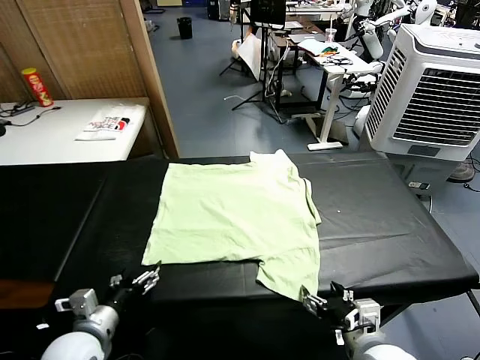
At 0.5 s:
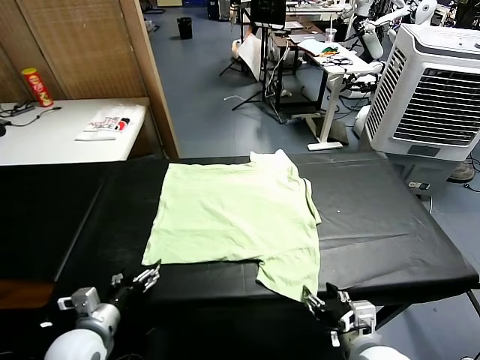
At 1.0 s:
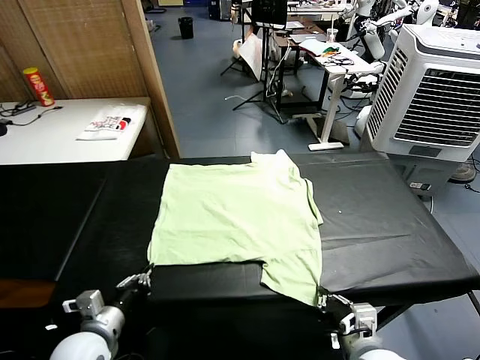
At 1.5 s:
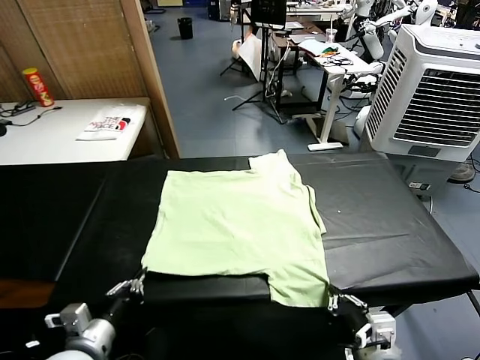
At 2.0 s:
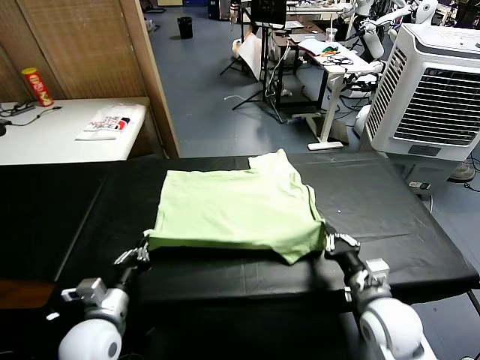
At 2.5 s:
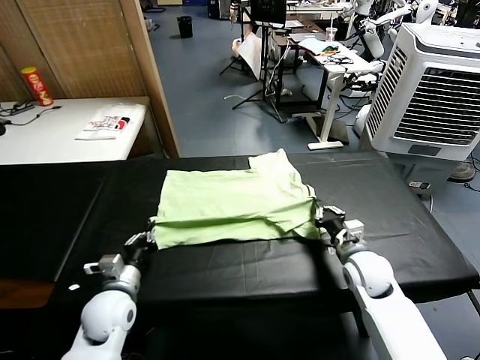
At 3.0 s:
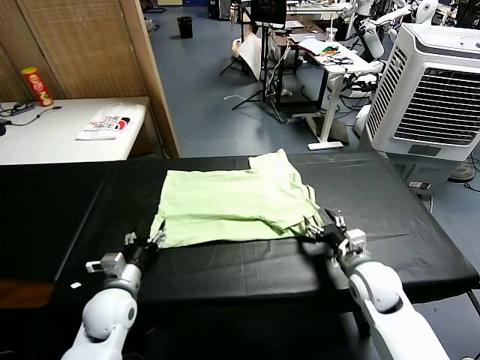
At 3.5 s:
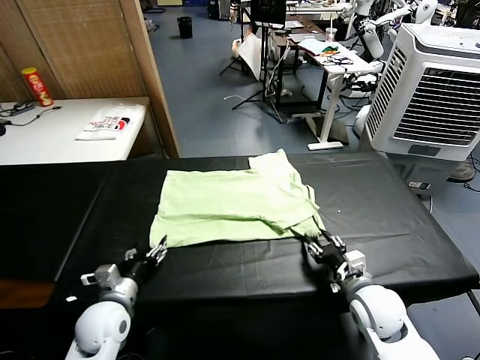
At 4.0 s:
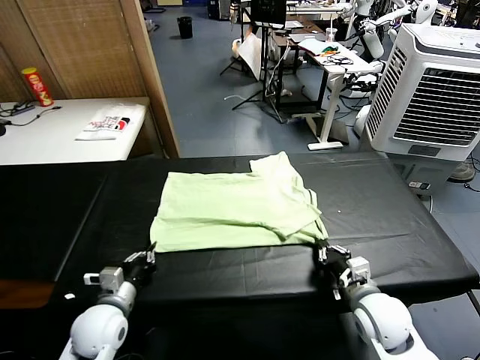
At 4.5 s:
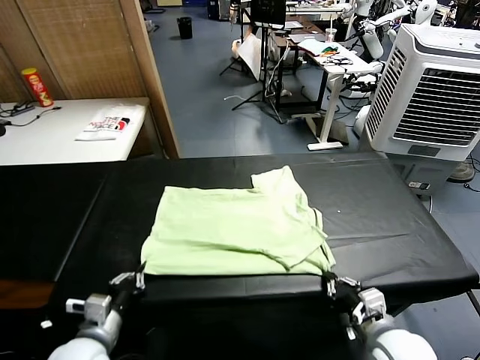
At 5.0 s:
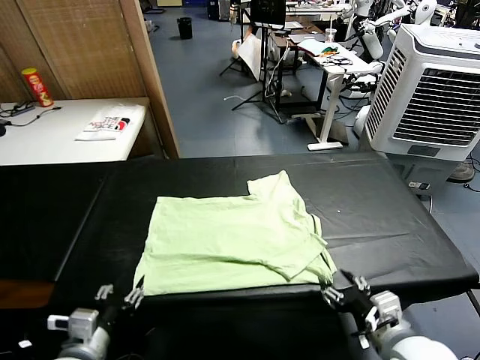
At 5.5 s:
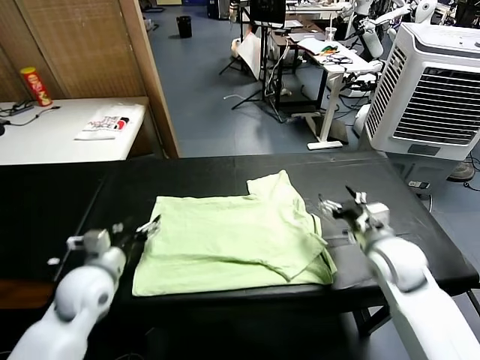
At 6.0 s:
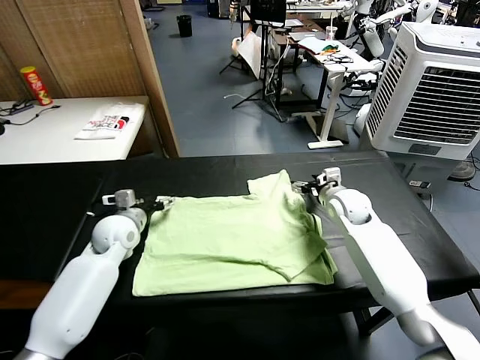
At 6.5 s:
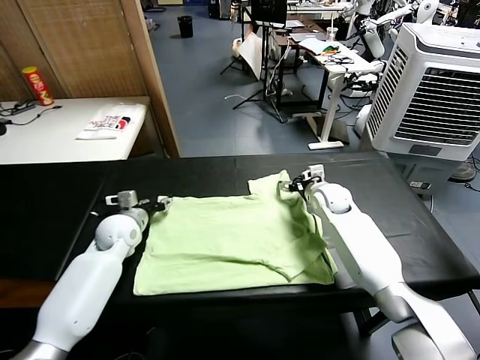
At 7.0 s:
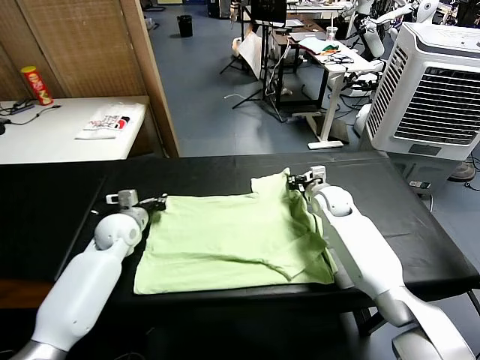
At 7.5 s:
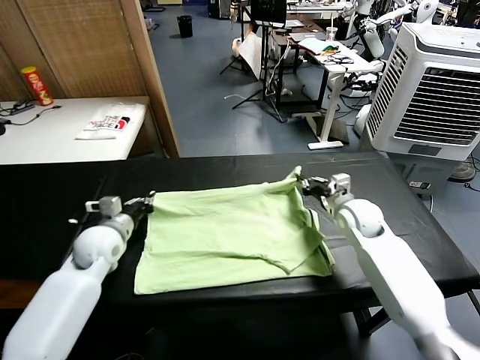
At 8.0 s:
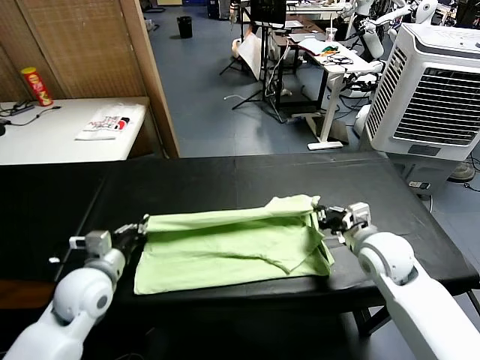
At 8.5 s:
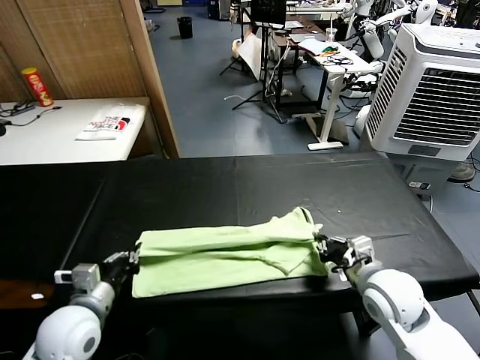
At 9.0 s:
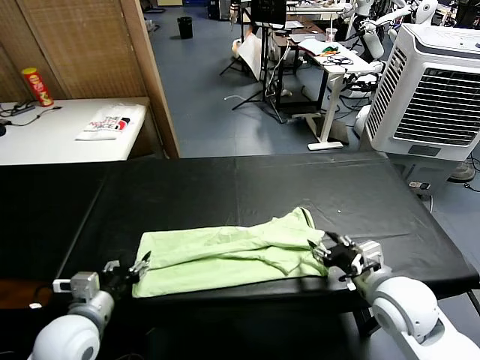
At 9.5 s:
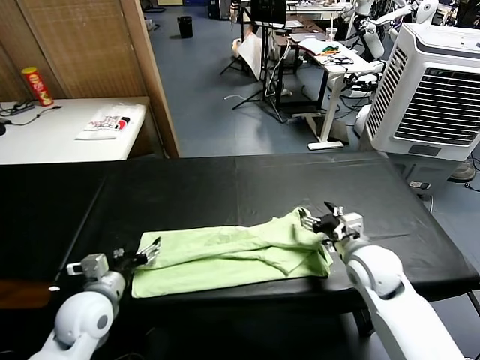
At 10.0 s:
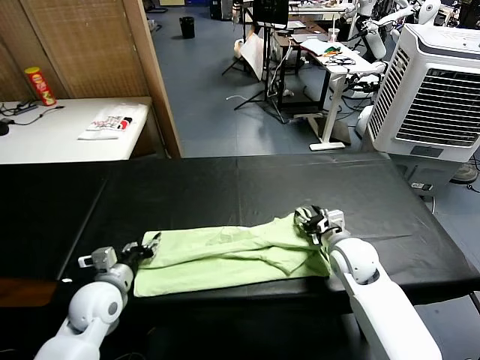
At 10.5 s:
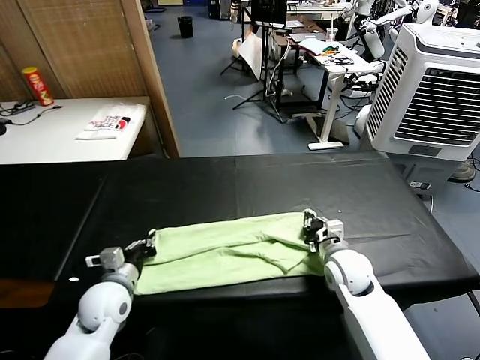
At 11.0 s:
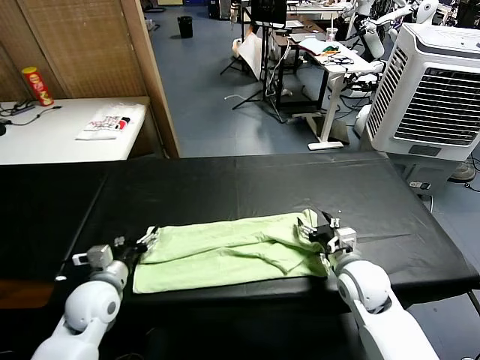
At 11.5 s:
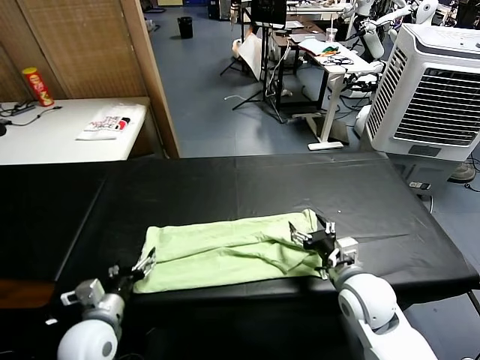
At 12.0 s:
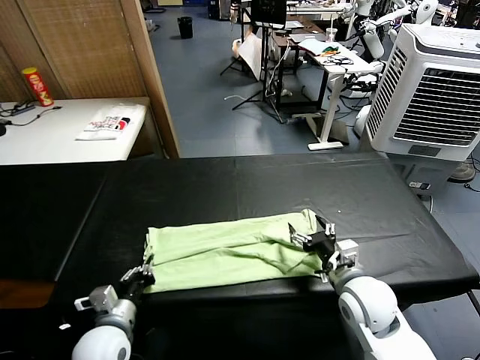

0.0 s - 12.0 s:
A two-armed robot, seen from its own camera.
Task of the whole recording: fold and organize the clothes.
Step, 0.0 s - 1.0 s: use both grippers simultaneously to clamp the lower edge of the clothing fabric.
Step, 1.5 s - 3.0 s: use both grippers to drag the lower edge of the fabric forward and fold it over the upper edge.
Step, 3.5 s - 4.5 s: Drag the clothes downward with both gripper.
Step, 5.5 s - 6.5 s: use both grippers simultaneously to clamp the upper edge of the clothing fabric.
Step, 7.0 s - 9.0 s: use both grippers to drag the upper edge of the fabric backward and fold it over the lower edge.
Step, 9.5 s - 12.0 s: use the left gripper to clamp the left edge of the fabric.
2.0 s - 4.0 s: The right gripper goes approximately 10 cm backward, and opens and closes again, while the left gripper opens, then closes again.
4.0 s - 6.0 s: The right gripper heads forward, covering about 30 cm, and opens its fingers. Meanwhile the left gripper heads forward, covering roughly 20 cm, and opens up.
6.0 s - 8.0 s: Both grippers travel together backward, approximately 20 cm. The left gripper closes its fingers. The right gripper closes its fingers.
8.0 s - 10.0 s: The left gripper travels downward by some 5 cm, goes backward and returns, about 5 cm each way, and opens, while the right gripper goes approximately 10 cm downward and forward, and opens and closes again.
10.0 s - 12.0 s: The two grippers go approximately 10 cm backward. The right gripper opens up. Meanwhile the left gripper closes up.

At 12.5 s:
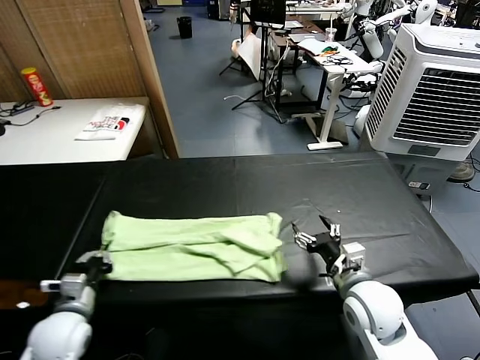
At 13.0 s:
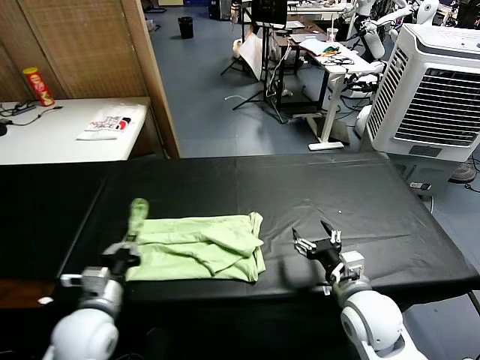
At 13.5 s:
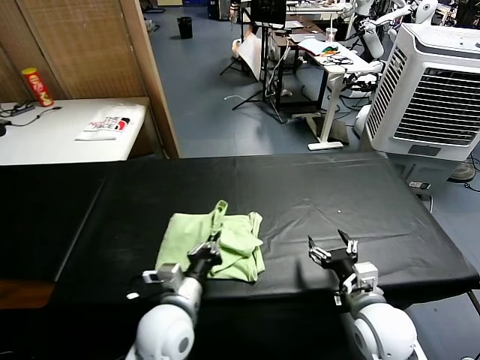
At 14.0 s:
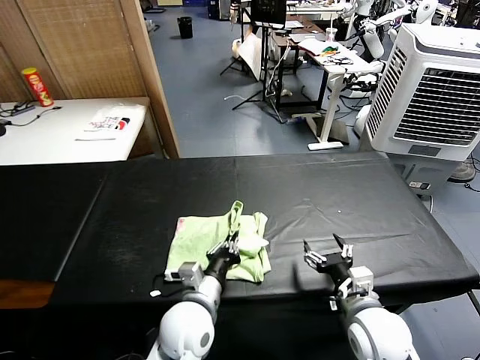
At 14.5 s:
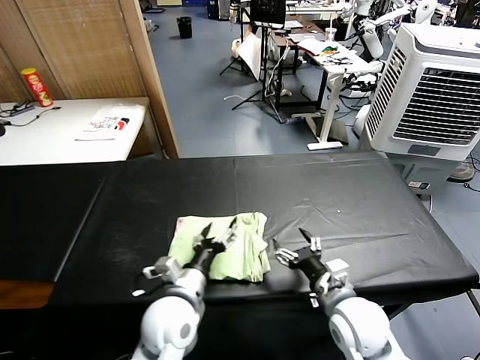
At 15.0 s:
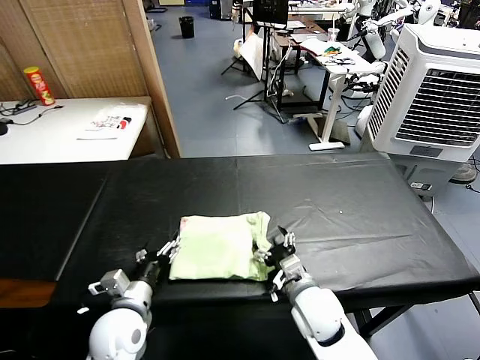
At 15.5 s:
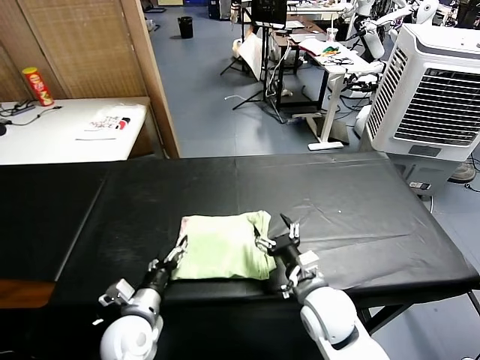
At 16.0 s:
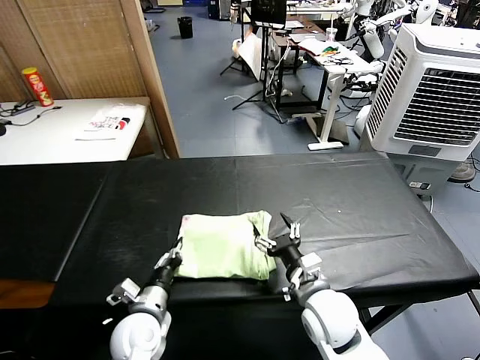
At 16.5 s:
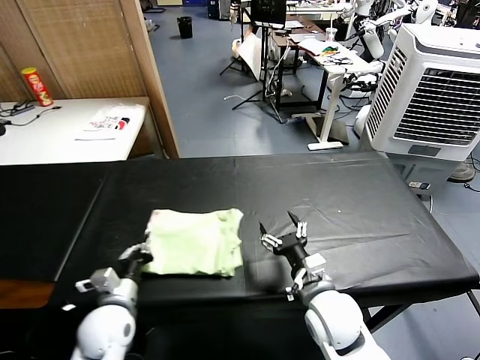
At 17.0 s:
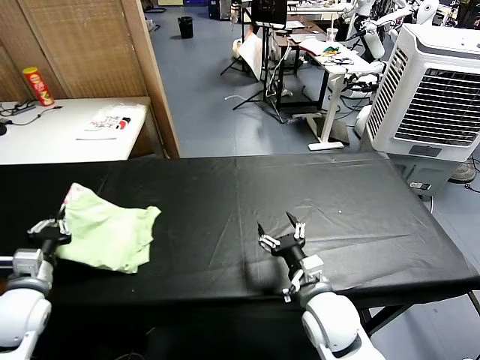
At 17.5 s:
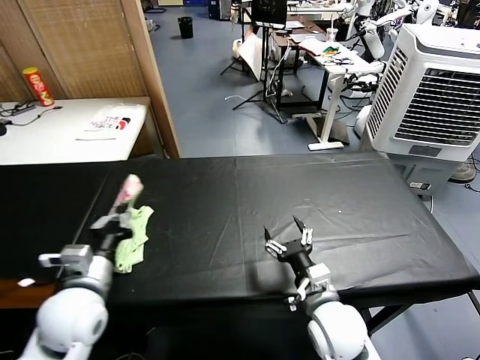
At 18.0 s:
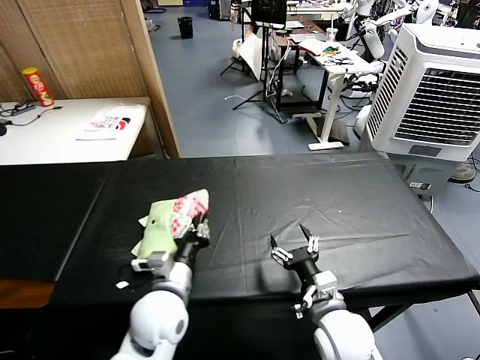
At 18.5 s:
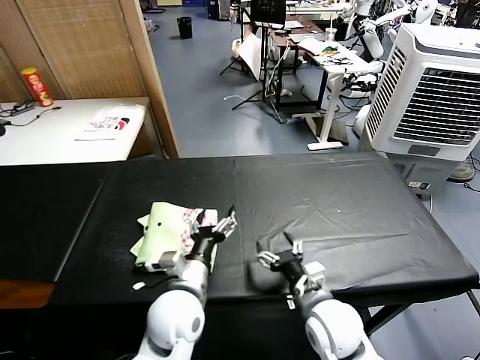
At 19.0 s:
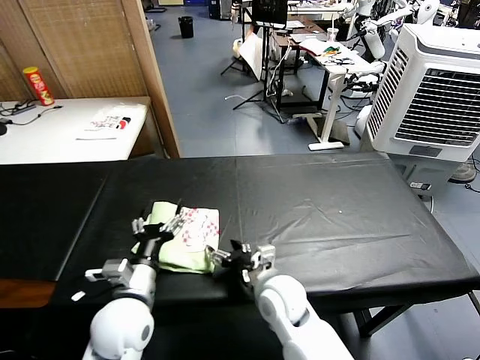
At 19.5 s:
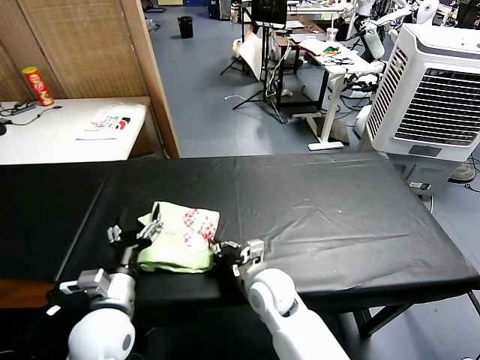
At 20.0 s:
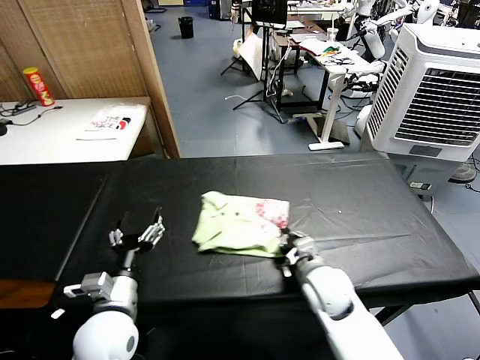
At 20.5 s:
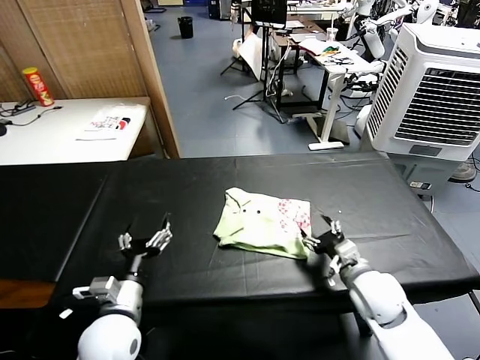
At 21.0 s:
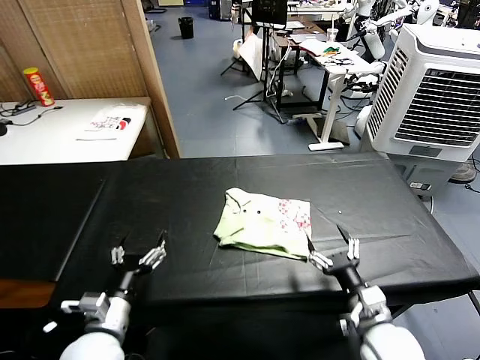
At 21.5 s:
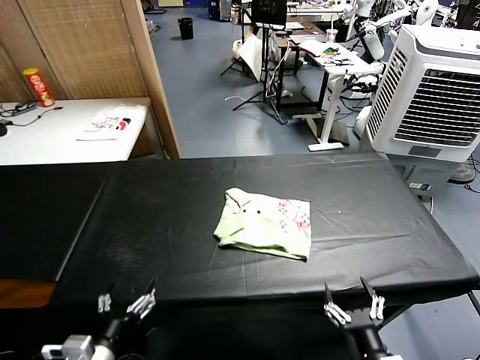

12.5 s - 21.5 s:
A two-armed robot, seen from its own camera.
Task of the whole recording: fold and organize the clothes.
Step, 12.5 s - 14.0 s: use the left gripper to drag the left edge of the fabric to the left and folds it over the right edge.
Step, 14.5 s - 18.0 s: Flip the folded clothes over with left gripper.
Step, 18.5 s - 20.0 s: Drag the clothes to the center of the table.
12.5 s - 14.5 s: The left gripper heads to the right, covering about 20 cm, and opens its fingers.
14.5 s - 17.0 s: The left gripper travels to the left by some 30 cm, and closes its fingers.
17.0 s - 19.5 s: The left gripper travels to the right by approximately 15 cm, and opens its fingers, while the right gripper goes approximately 10 cm to the left and forward, and closes its fingers.
19.5 s - 21.5 s: The left gripper heads backward, covering approximately 10 cm. The right gripper moves backward and to the right, about 30 cm, and opens up.

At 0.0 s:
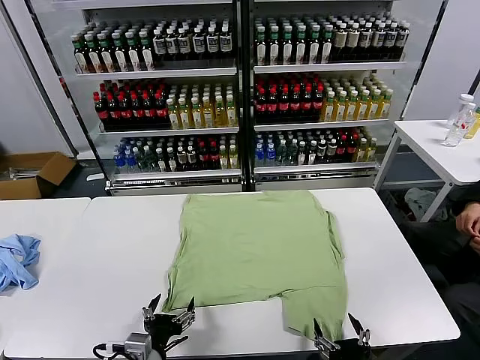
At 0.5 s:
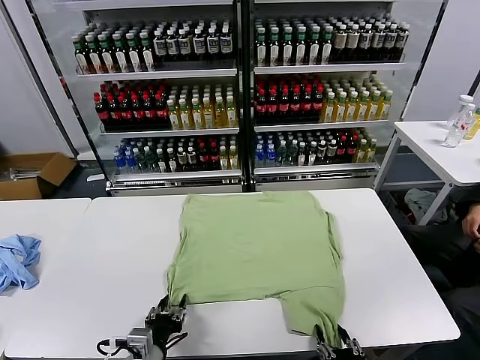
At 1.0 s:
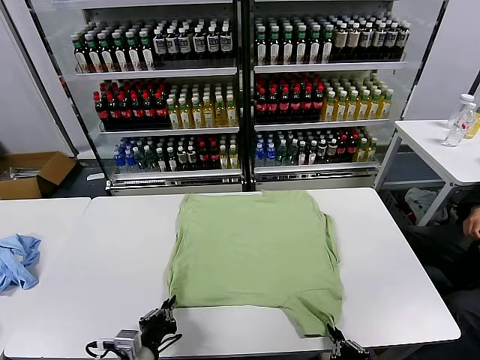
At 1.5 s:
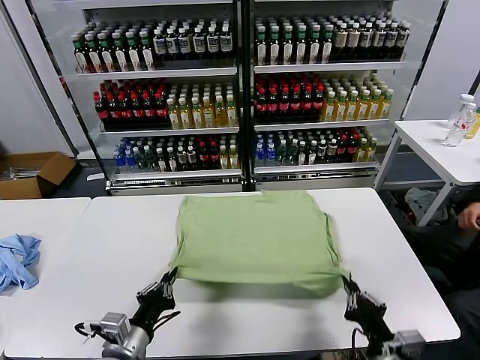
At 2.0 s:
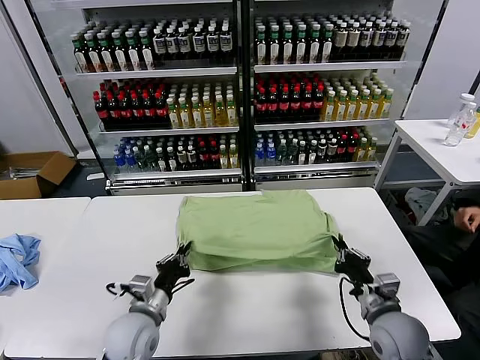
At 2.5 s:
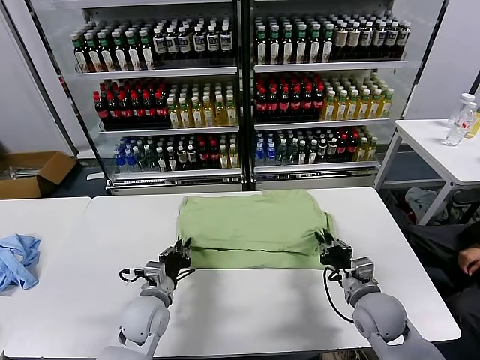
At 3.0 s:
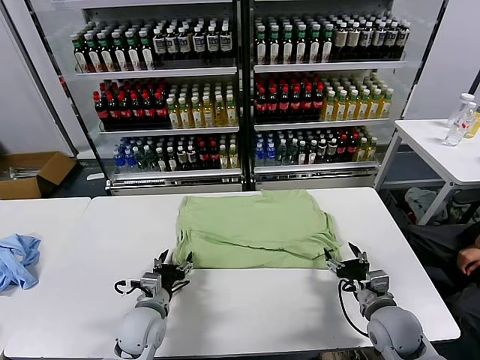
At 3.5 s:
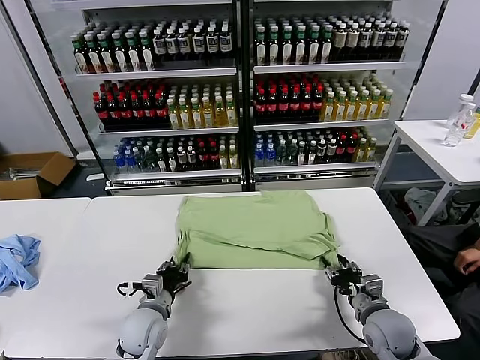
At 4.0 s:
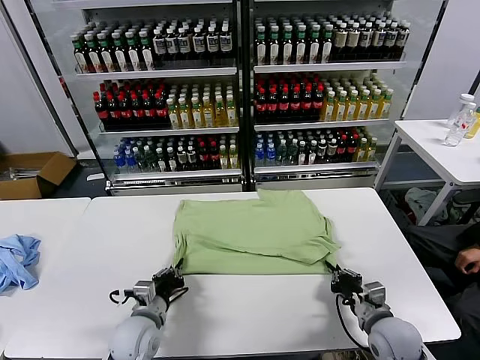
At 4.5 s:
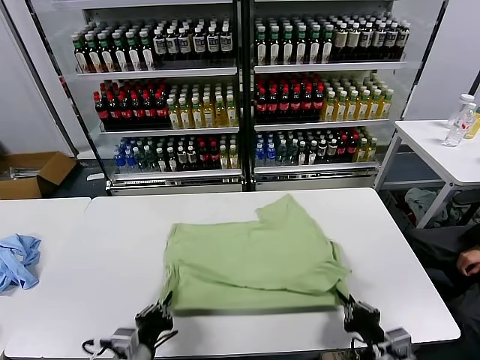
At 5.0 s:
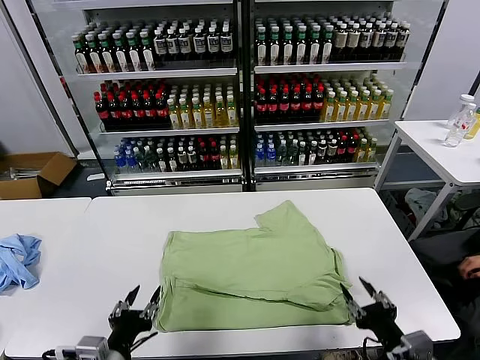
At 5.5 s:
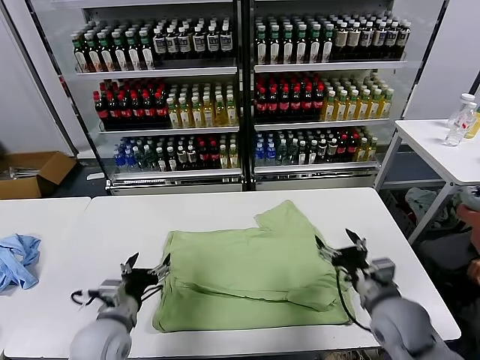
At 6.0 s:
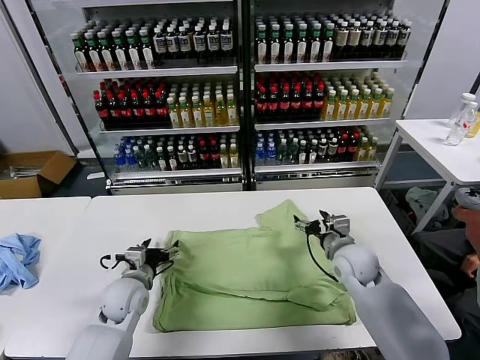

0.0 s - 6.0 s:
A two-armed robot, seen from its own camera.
Task of the whole recording: fold and organize the clothes.
Step, 0.0 s - 0.5 s: use both grippers simultaneously to clamp the lower edge of the clothing fabric.
Step, 1.5 s - 2.5 s: use both grippers to drag the lower edge of the fabric forward and fold it over the upper edge.
Step, 3.0 s - 4.5 s: Drag the clothes downward with both gripper.
2.0 s - 4.0 s: The left gripper opens and closes again, while the right gripper ends up roughly 5 cm from where it was, and opens and closes again.
4.0 s - 6.0 s: The right gripper moves forward, about 20 cm, and opens its fingers. The left gripper shifts roughly 10 cm forward, and opens its fingers.
